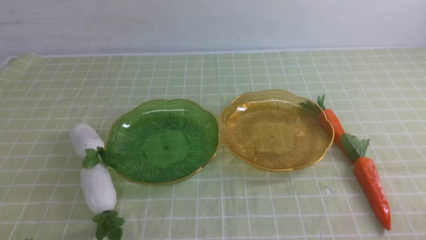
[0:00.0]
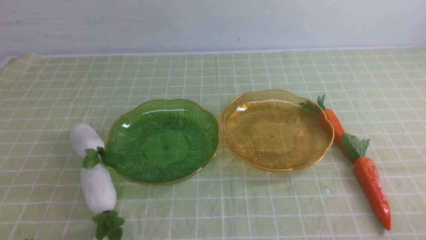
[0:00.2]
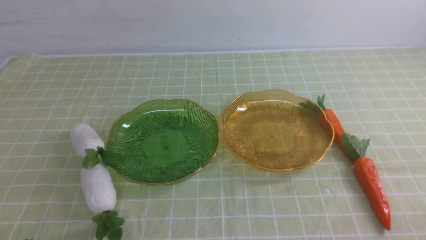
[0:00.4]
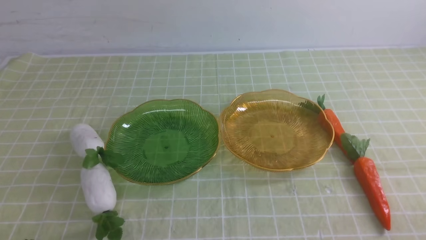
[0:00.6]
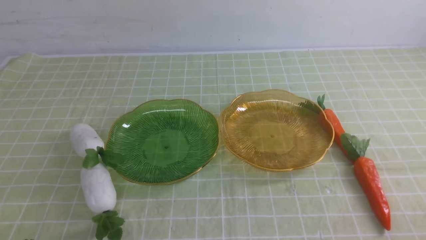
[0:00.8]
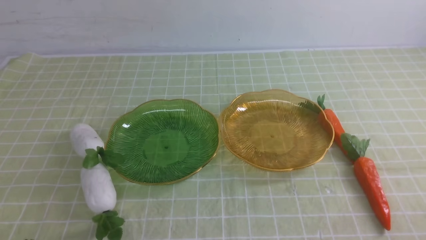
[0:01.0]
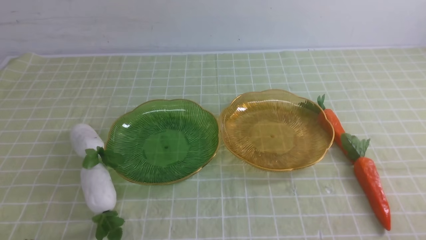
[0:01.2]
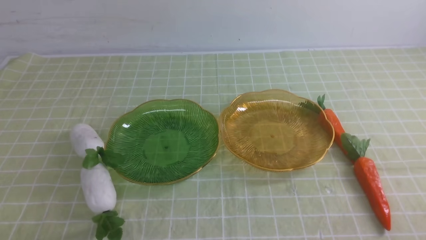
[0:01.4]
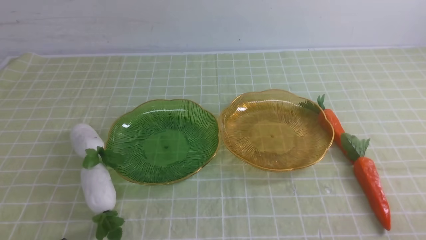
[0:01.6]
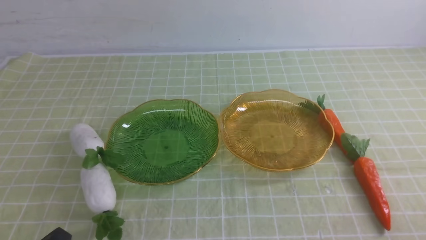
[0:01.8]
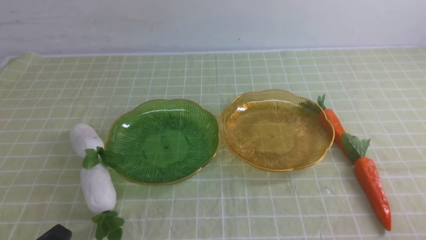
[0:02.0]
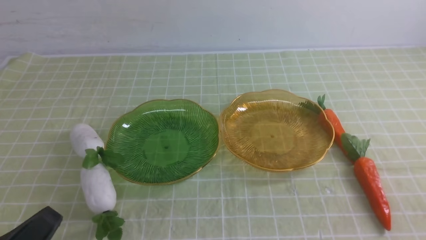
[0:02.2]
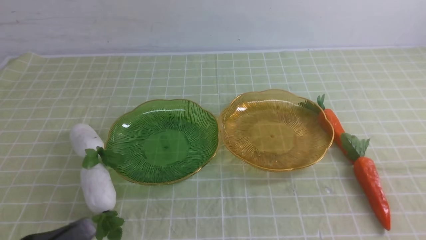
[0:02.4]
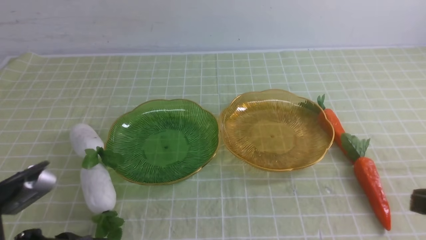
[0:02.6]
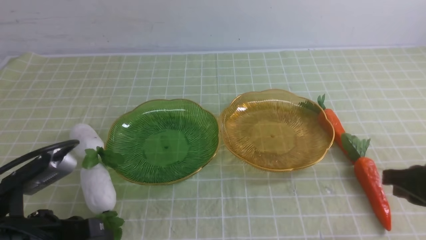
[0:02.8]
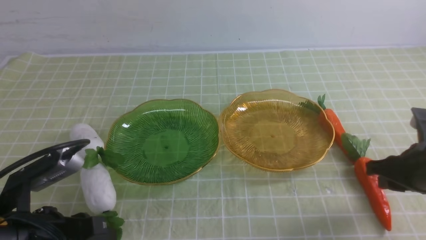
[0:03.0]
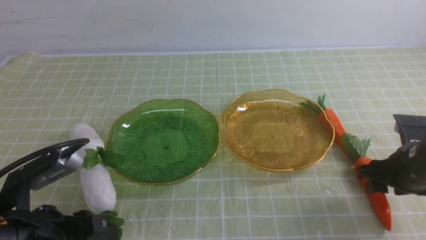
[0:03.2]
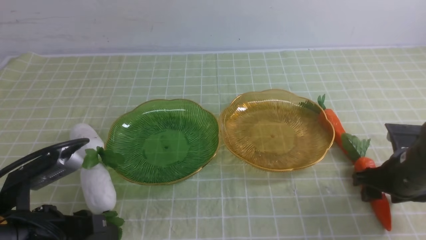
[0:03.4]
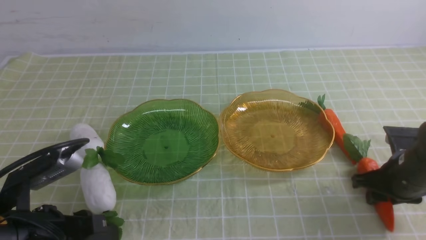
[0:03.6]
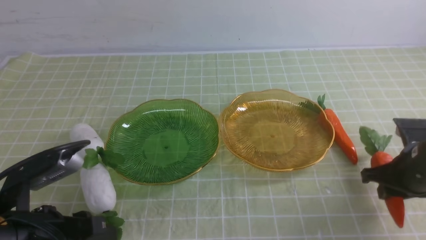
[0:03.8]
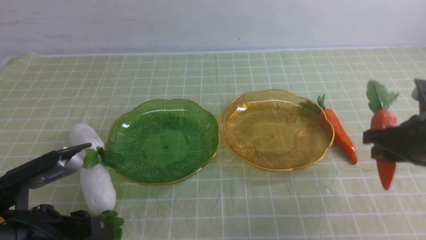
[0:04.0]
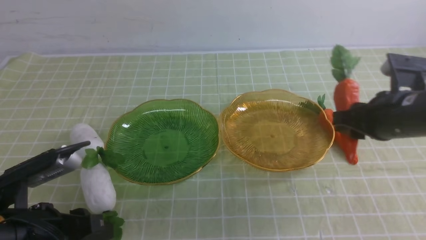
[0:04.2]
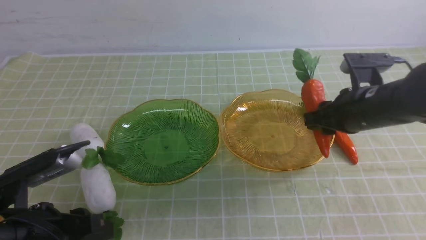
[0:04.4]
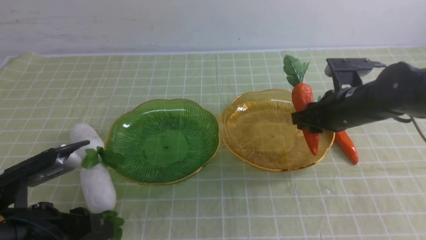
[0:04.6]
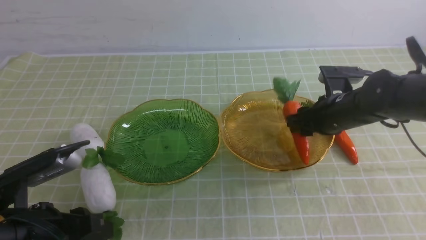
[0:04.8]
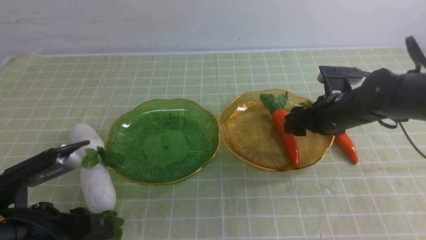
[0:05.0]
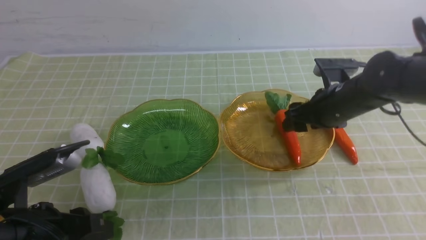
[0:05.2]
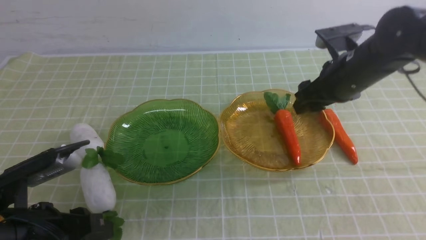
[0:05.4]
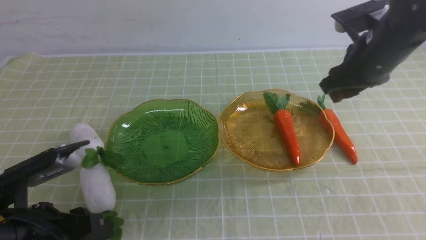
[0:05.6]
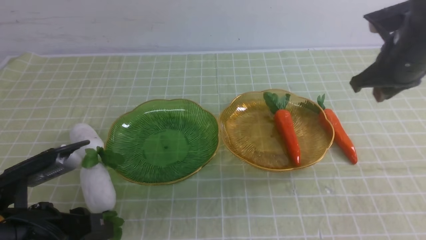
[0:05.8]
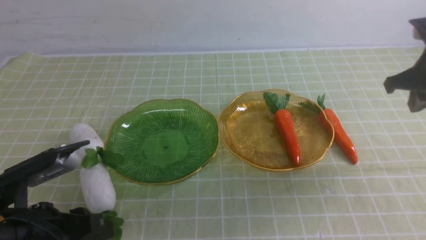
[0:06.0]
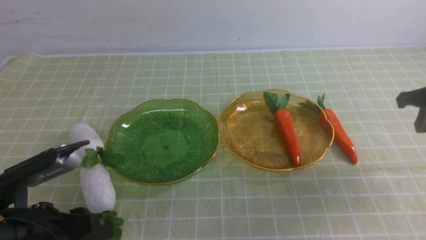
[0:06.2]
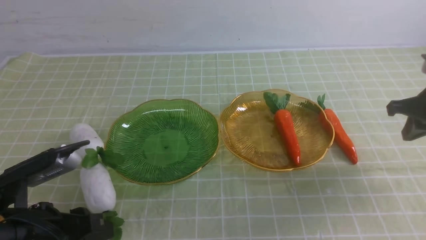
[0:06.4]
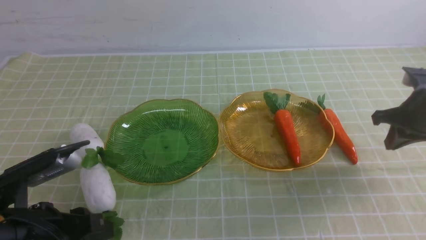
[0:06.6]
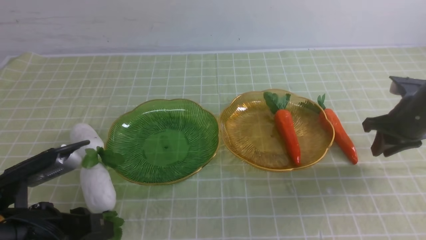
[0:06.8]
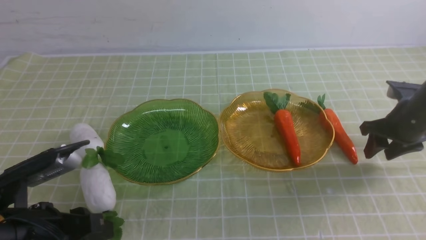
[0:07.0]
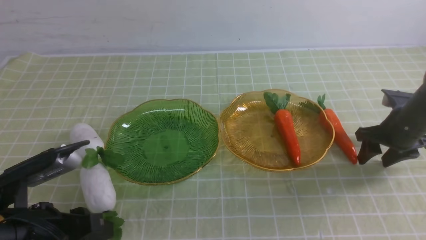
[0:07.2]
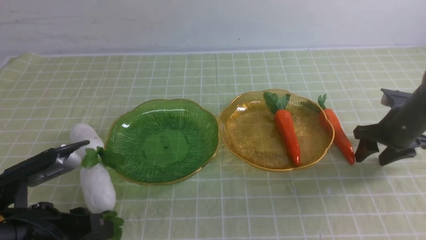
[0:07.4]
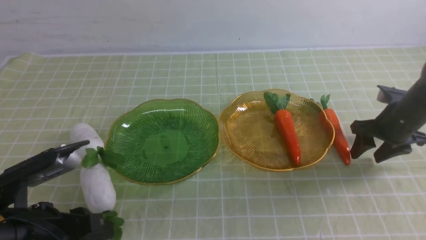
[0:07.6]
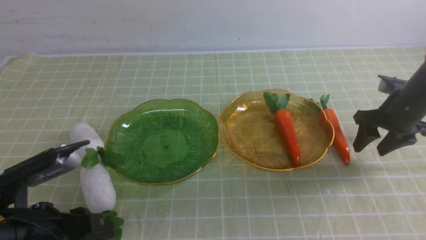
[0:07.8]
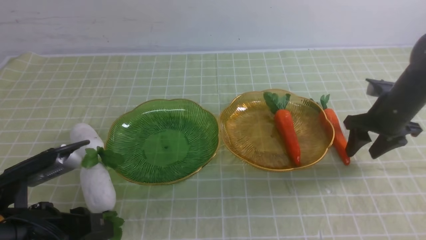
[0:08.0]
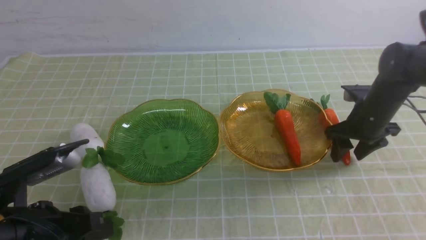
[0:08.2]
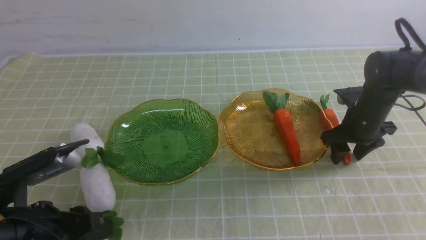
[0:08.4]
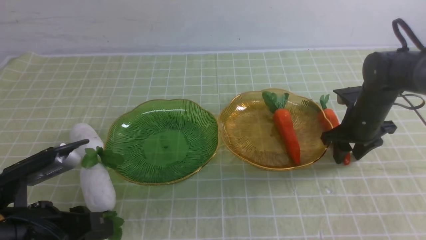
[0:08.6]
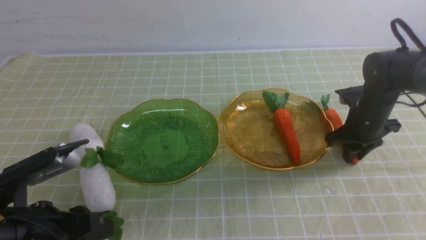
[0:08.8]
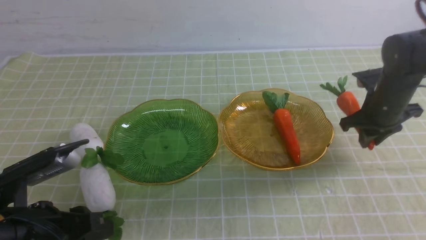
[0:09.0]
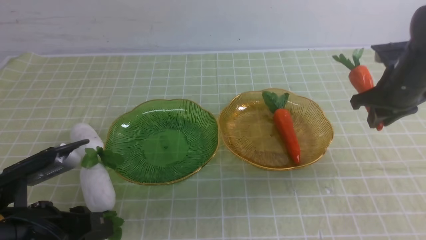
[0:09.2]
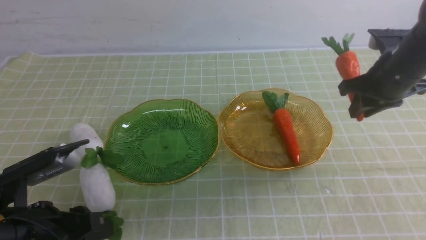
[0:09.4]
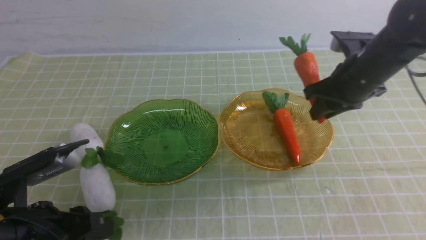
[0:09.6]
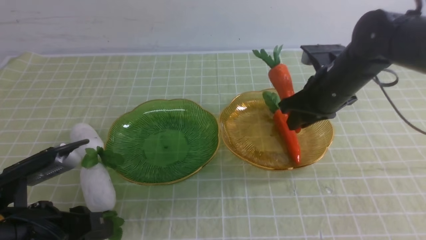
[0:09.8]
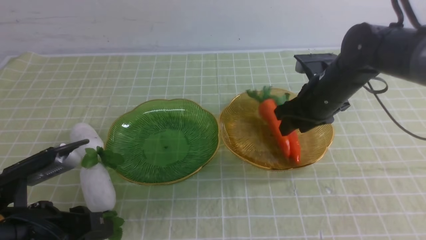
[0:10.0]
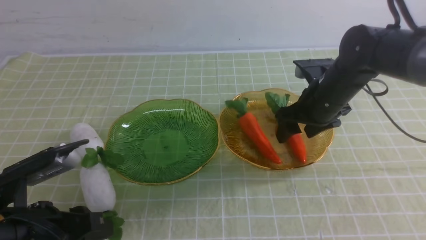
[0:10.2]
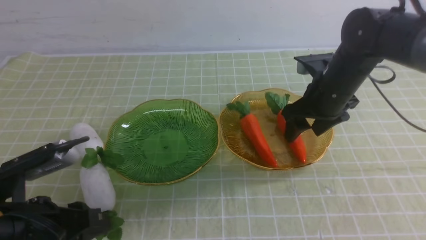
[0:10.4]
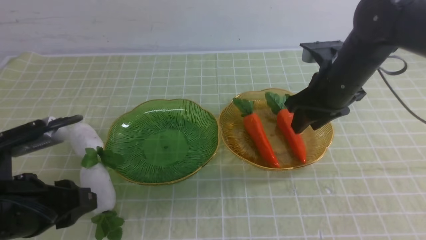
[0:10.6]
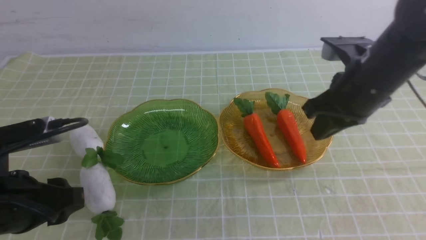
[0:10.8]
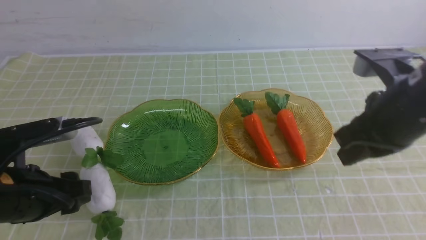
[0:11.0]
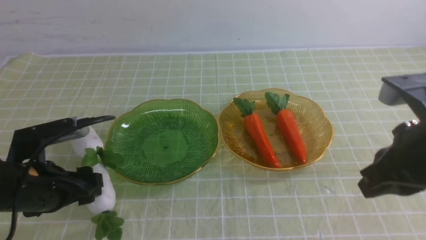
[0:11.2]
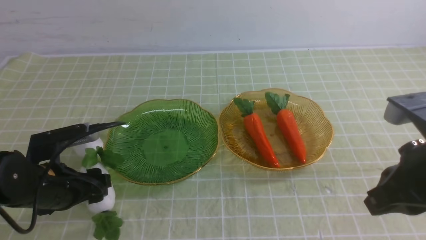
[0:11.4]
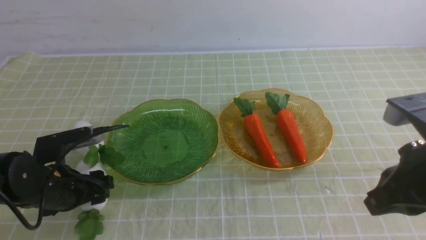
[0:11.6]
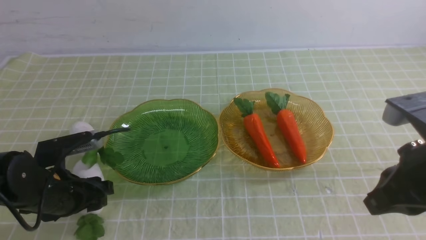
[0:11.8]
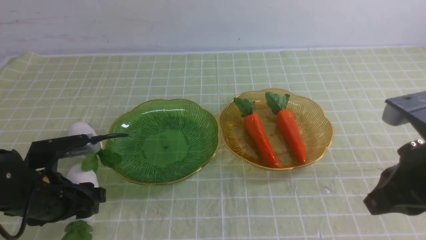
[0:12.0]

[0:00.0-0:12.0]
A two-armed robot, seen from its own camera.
Step, 0:00.0 to 0:05.0: use the right arm to grab a chayote and put it into the right plate.
Step, 0:05.4 to 0:10.8: use the right arm to grab a chayote and put it into the right plate.
0:01.6 to 0:03.0: The left gripper shifts approximately 10 cm forward and upward; the right gripper goes some 20 cm forward, and opens up.
0:03.0 to 0:04.4: The right gripper shifts some 10 cm forward and to the left.
0:04.4 to 0:06.0: The right gripper shifts about 10 cm to the right and upward, and closes.
0:06.0 to 0:07.6: The right gripper travels downward by about 10 cm, and opens its fingers.
0:07.6 to 0:09.0: The right gripper shifts by roughly 5 cm, and closes its fingers.
0:09.0 to 0:10.4: The right gripper goes approximately 10 cm to the left, and opens its fingers.
0:10.4 to 0:12.0: The left gripper is displaced forward by some 10 cm; the right gripper moves backward, some 20 cm, and closes.

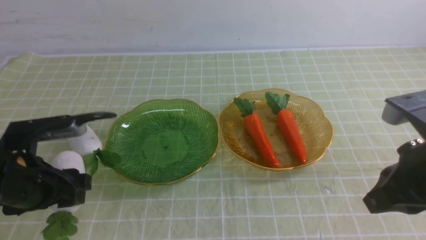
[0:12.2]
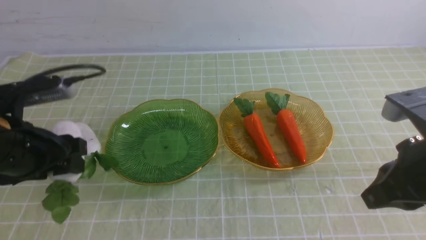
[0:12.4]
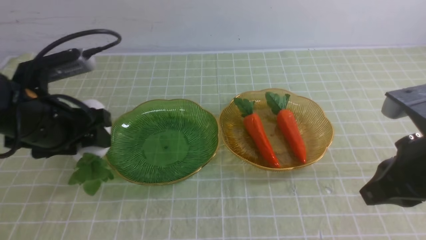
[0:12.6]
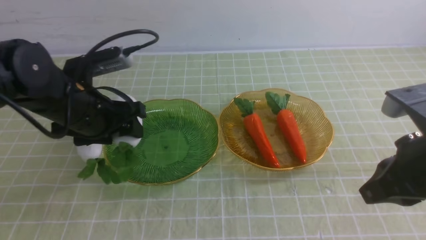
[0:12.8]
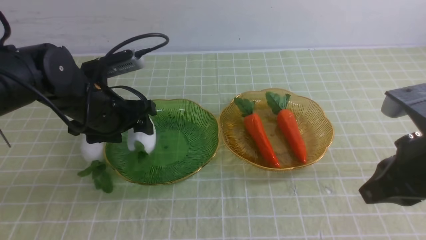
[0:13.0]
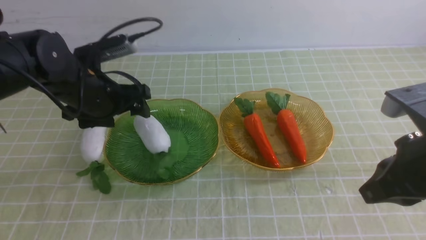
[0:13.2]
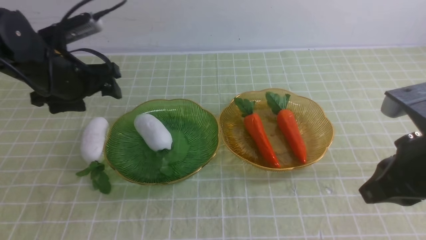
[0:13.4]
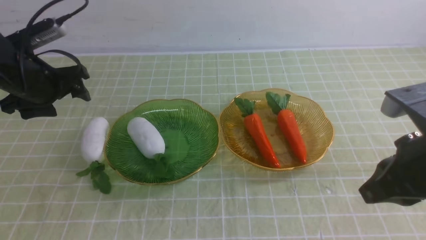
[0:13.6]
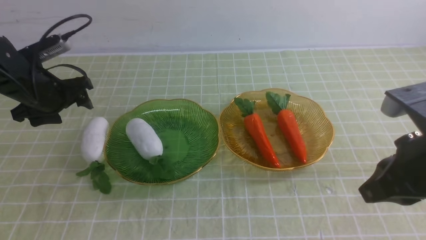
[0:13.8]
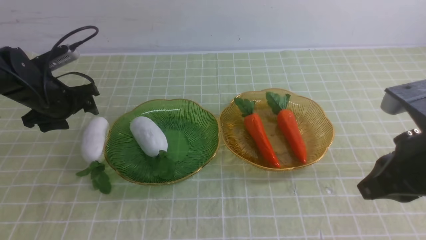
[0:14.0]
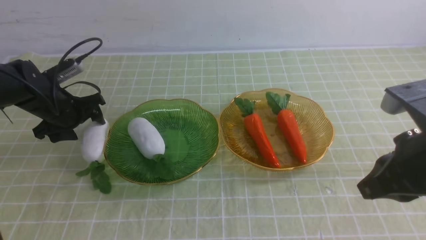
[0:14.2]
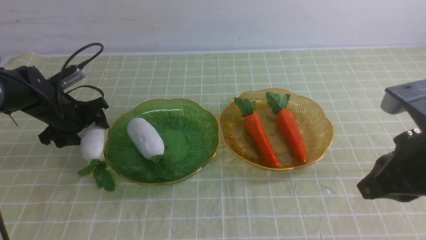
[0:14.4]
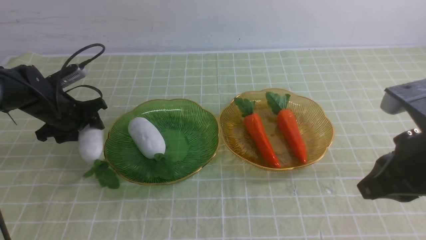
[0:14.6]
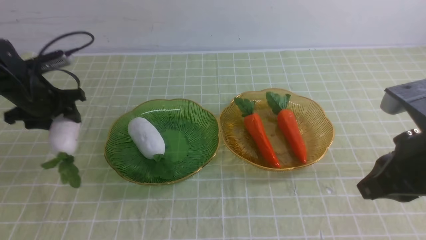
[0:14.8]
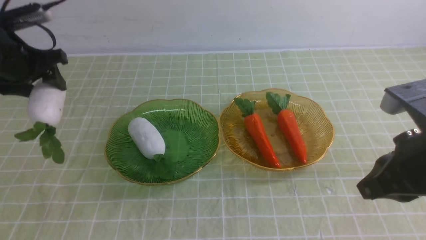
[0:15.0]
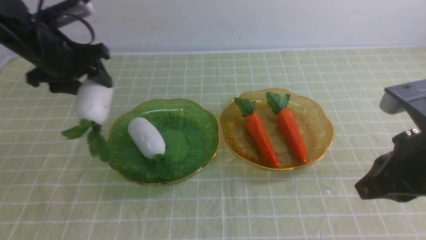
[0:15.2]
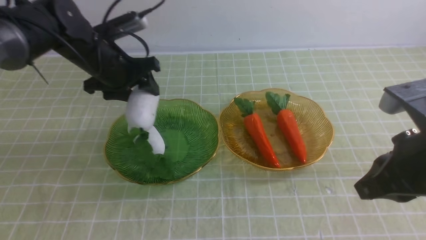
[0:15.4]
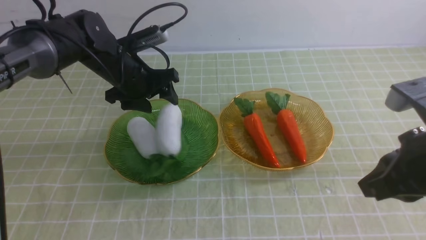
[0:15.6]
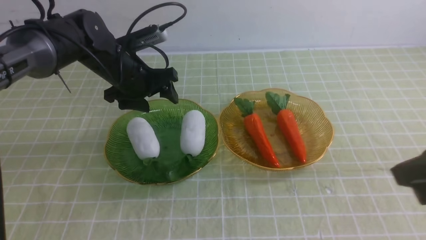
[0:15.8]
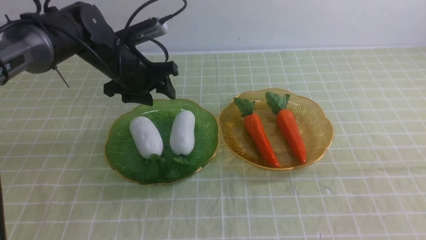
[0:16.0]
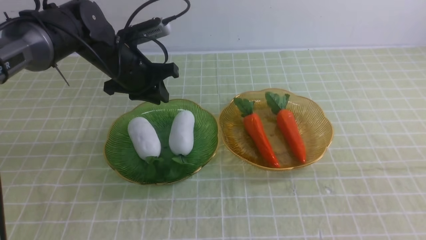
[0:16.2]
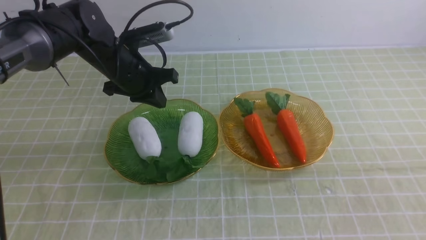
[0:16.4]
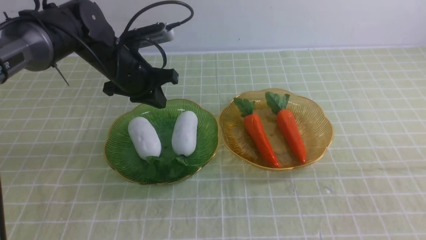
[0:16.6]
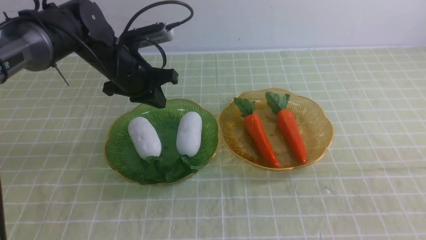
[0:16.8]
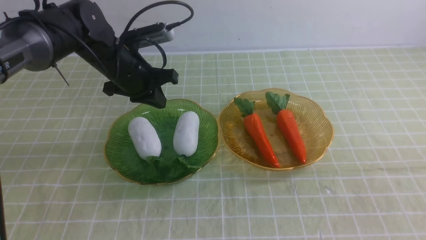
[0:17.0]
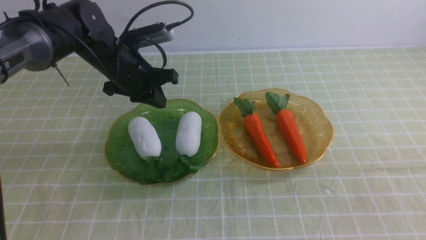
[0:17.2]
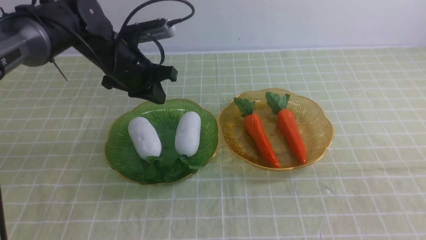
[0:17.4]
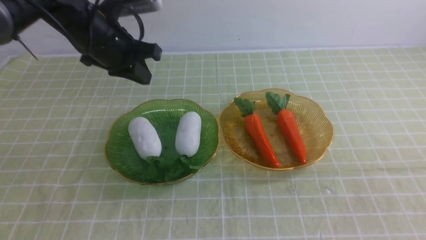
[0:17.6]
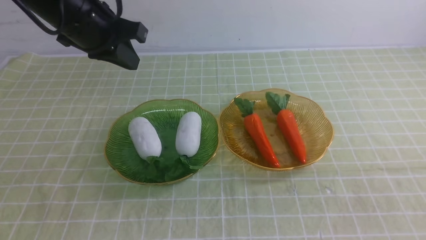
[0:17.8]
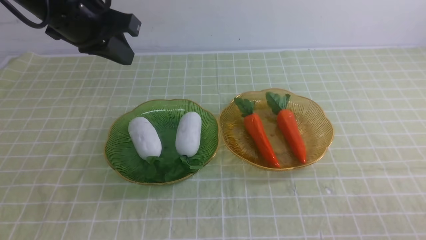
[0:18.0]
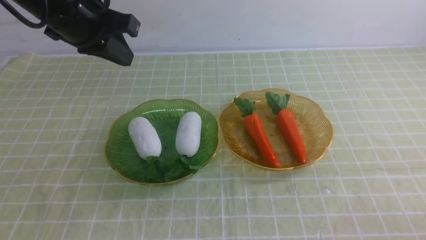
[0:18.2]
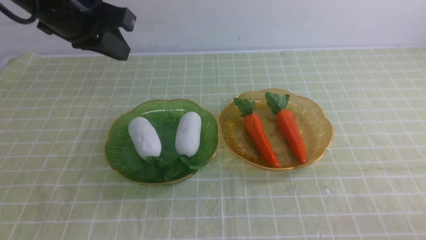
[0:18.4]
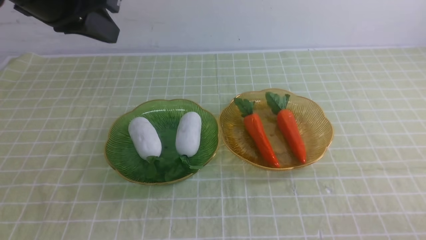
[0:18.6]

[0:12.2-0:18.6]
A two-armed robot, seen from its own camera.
Step, 0:13.6 to 0:15.6: use the left arm to grab a radish and put it into the left plate.
0:12.2 to 0:13.8: The left gripper travels forward by some 15 cm.
0:13.8 to 0:15.4: The left gripper moves to the right, approximately 10 cm.
0:15.4 to 0:17.0: The left gripper closes its fingers. Meanwhile the right gripper goes roughly 15 cm backward and to the right.
0:17.0 to 0:18.6: The left gripper heads upward and backward, covering roughly 20 cm. Meanwhile the right gripper goes some 10 cm downward.
